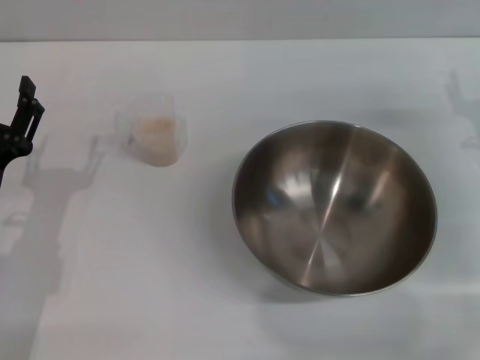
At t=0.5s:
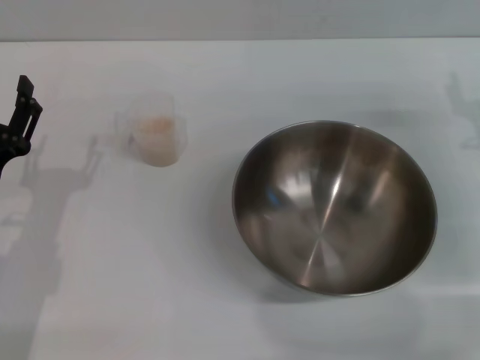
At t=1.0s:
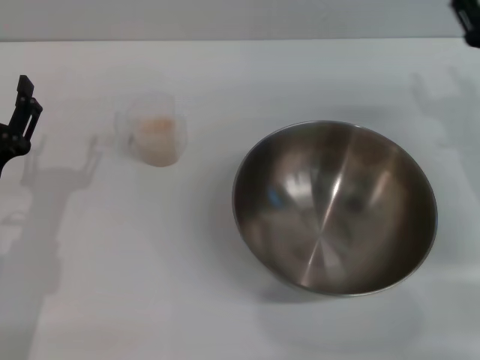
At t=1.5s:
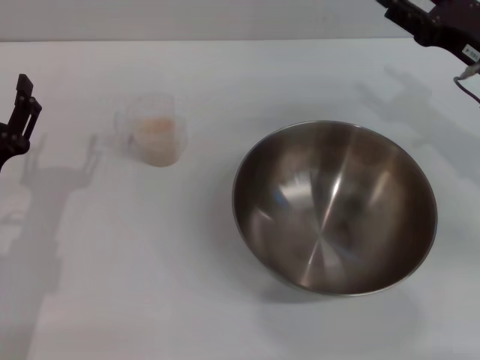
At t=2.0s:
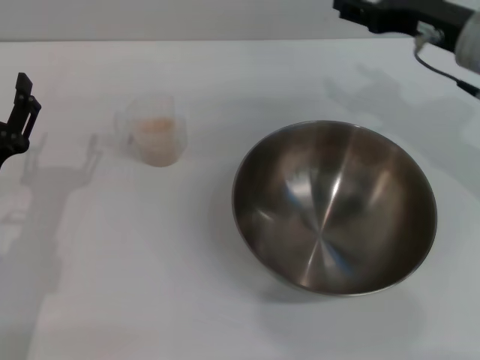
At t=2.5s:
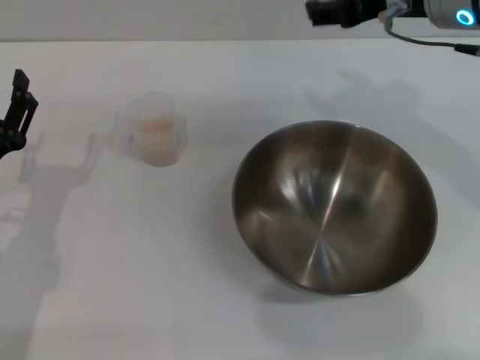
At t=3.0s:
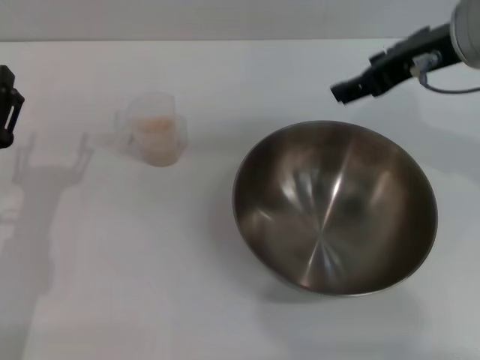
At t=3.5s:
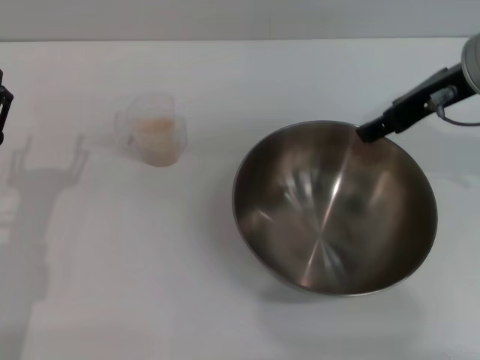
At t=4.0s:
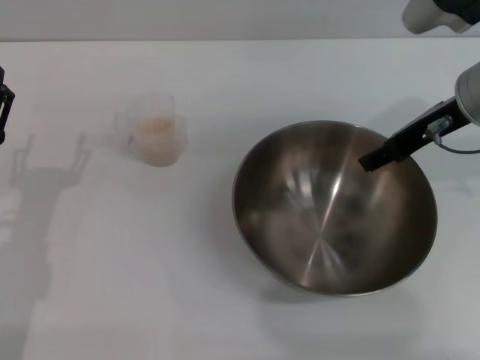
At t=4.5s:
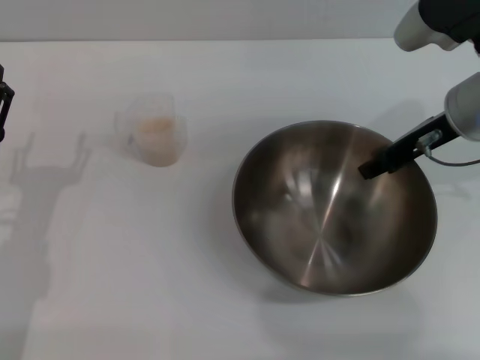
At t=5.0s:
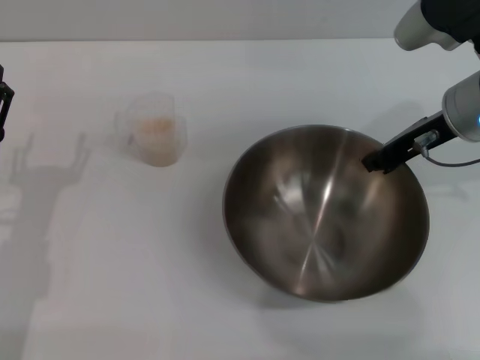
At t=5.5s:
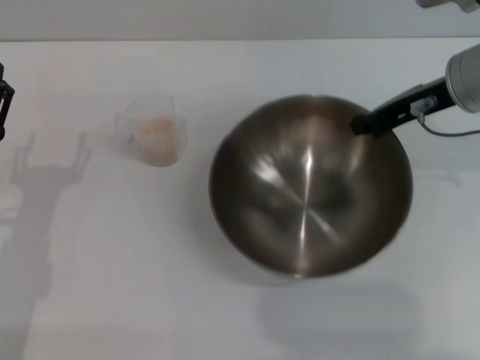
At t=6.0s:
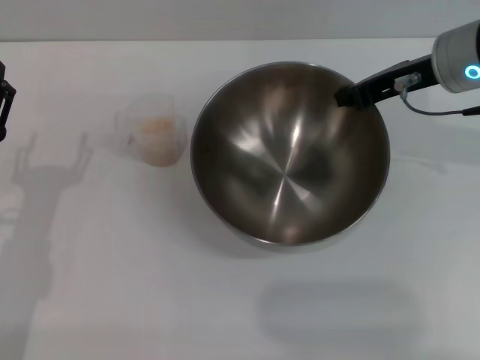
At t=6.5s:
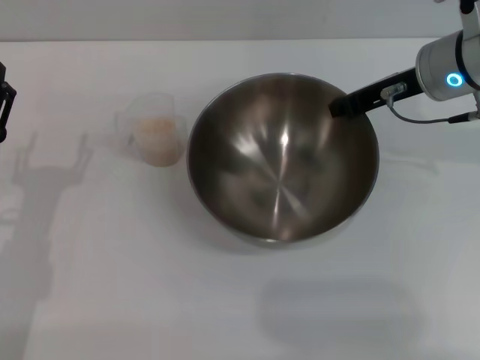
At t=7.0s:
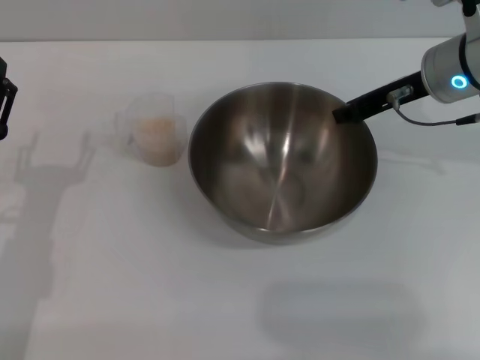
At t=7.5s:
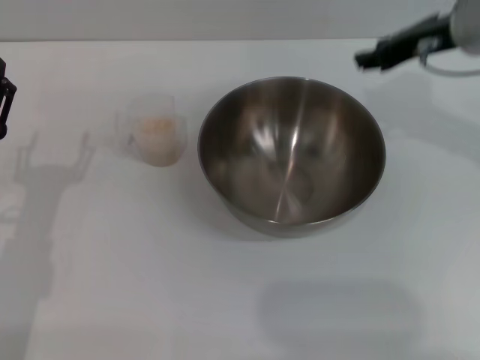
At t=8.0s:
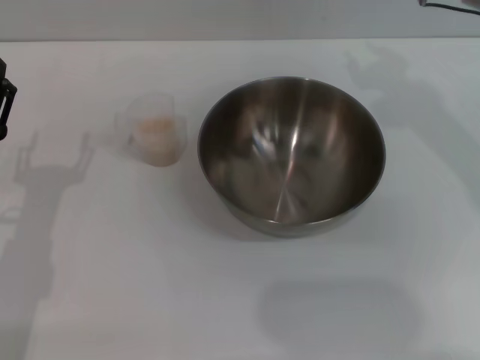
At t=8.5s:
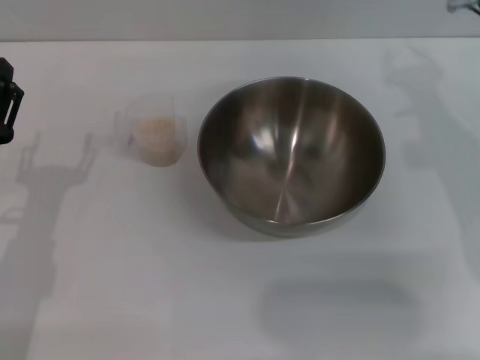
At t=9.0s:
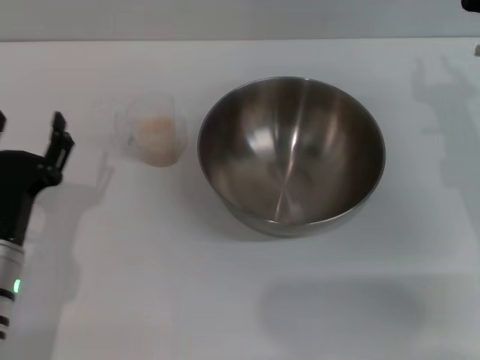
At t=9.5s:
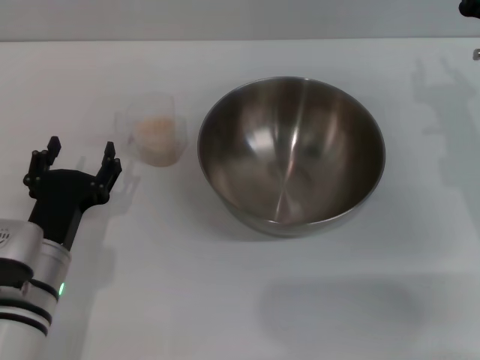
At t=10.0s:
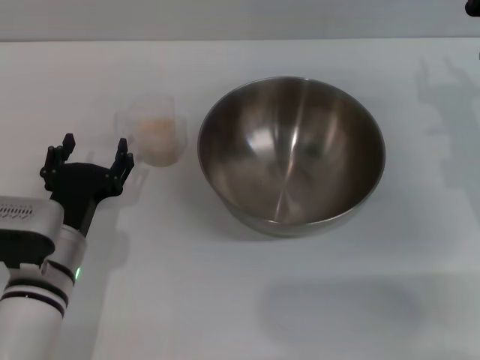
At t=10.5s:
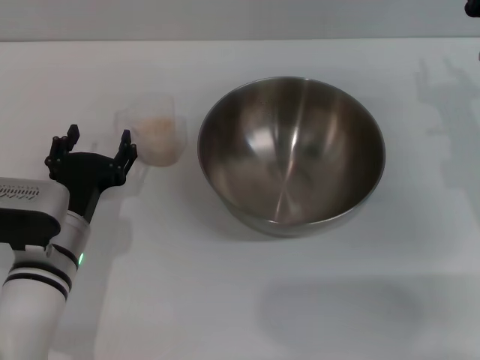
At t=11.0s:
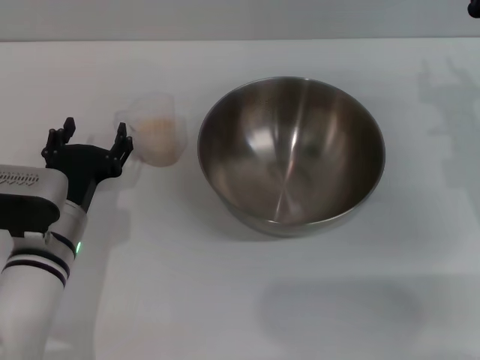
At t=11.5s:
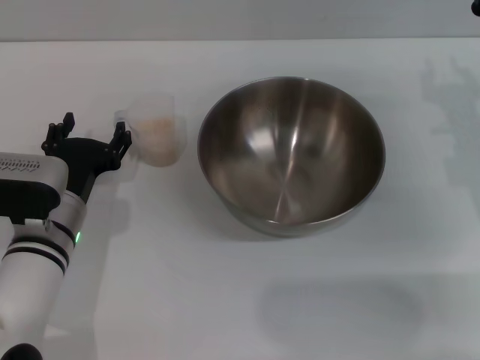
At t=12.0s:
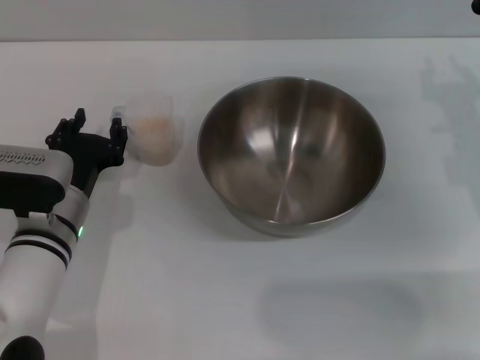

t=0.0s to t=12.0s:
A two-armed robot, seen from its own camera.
Task of the whole recording: Place the bowl in the middle of the table with one hand and pour the rice from the grain cup into it with the other hand.
Step, t=0.0s to t=5.5s: Pick up the bowl with the right gripper.
Step, t=6.0s to t=7.0s: Place the bowl in the center of view with the right gripper.
t=0.0s to t=2.0s: The right gripper moves upward and to the left, some 15 cm.
t=4.0s to t=6.0s: The right gripper closes up.
t=6.0s to t=8.0s: The right gripper opens up.
t=8.0s to t=10.0s: The right gripper goes roughly 10 cm downward and to the right; the left gripper moves to the right, roughly 5 cm.
t=10.0s to t=12.0s: There are only small adjustments of the grippers.

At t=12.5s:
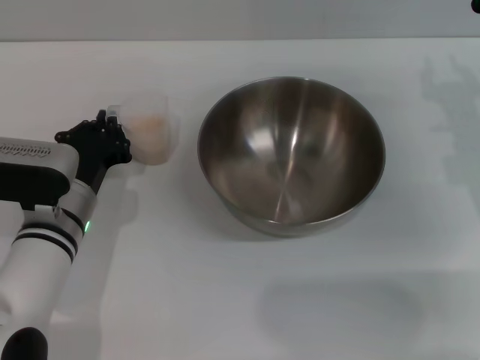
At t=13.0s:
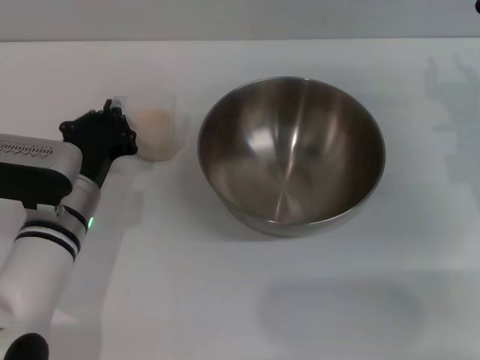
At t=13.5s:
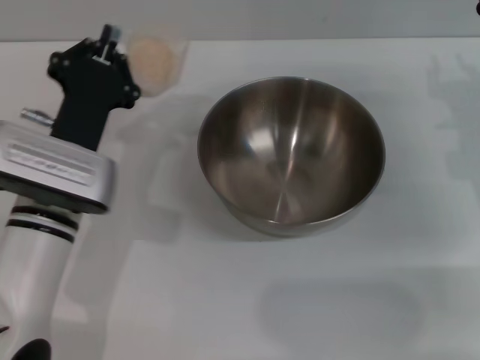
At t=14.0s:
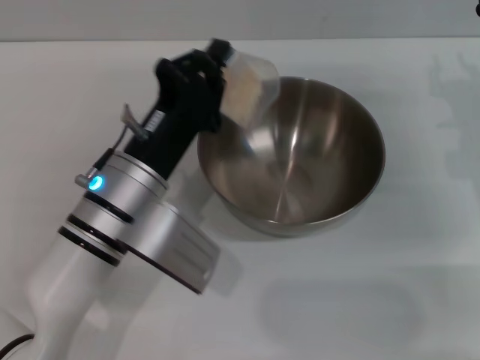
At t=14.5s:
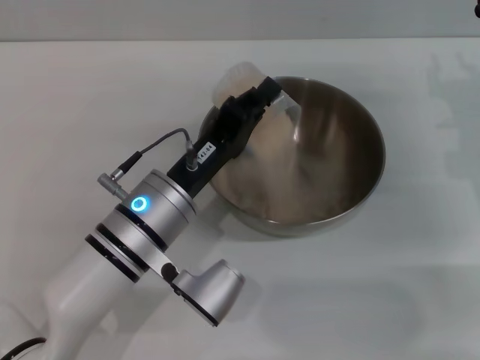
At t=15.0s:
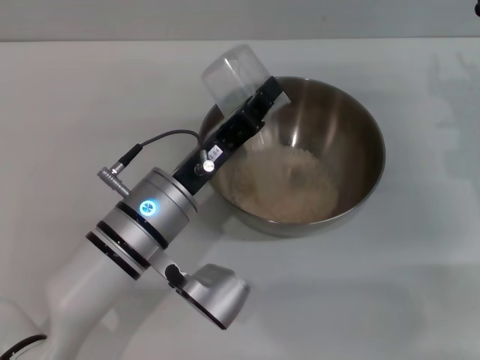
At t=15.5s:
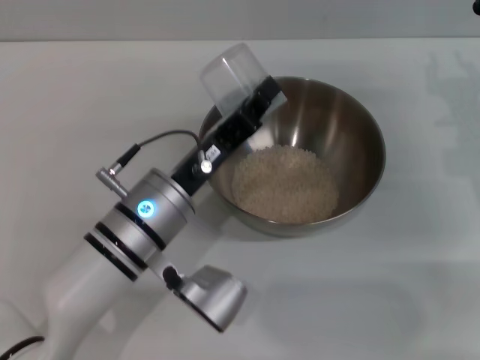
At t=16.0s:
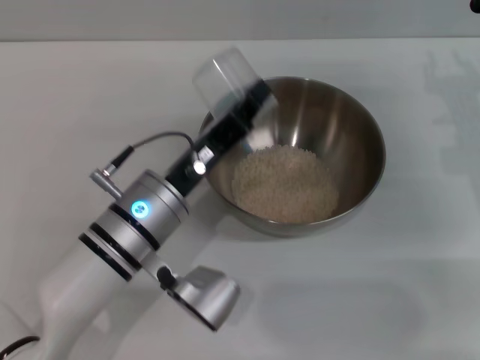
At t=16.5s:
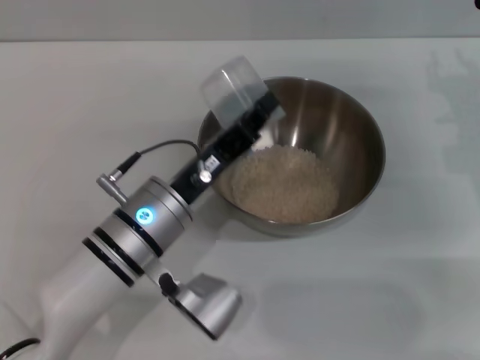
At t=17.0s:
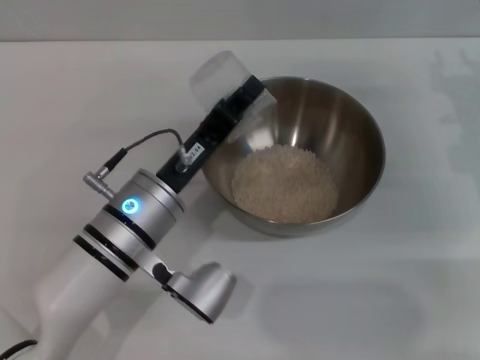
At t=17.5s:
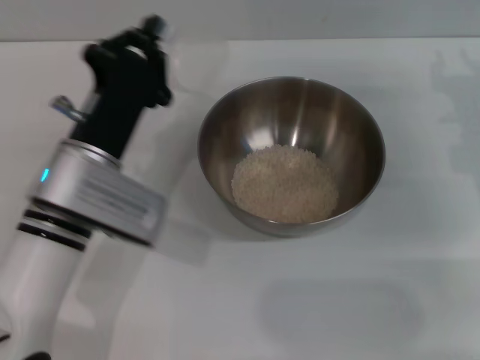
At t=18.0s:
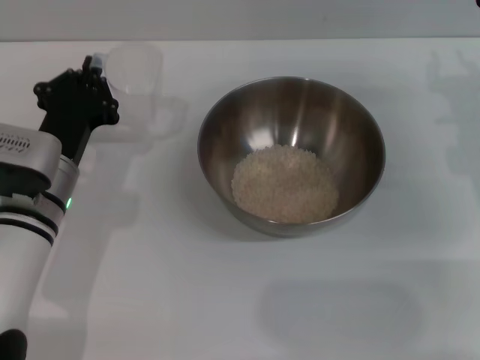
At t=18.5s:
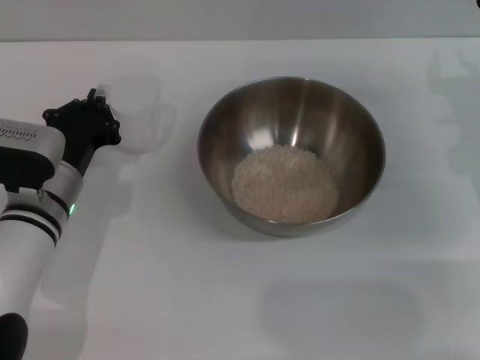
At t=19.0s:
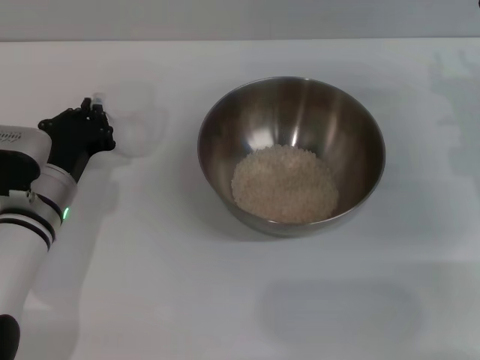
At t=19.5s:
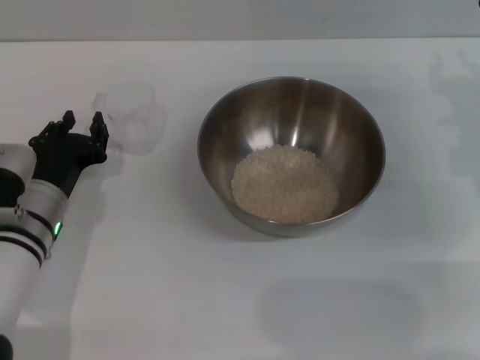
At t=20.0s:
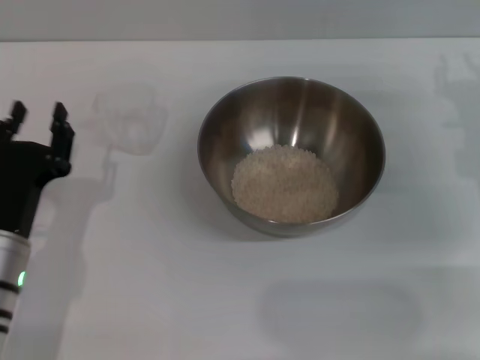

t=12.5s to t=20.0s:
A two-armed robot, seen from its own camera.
Task of the whole recording: Place the bowl in the middle of the table with one hand and pour the rice from the grain cup into it with the other hand.
Step, t=13.5s to t=16.5s: Pour the rice from the cup into the bowl with the left gripper.
Step, t=17.5s to t=19.5s: Place the cup on the table with the left gripper.
t=12.5s to t=14.5s: The left gripper goes some 10 cm to the right.
t=16.5s to t=18.0s: The left gripper travels to the left by approximately 10 cm.
t=18.0s to t=20.0s: The left gripper is displaced backward by about 10 cm, and opens up.

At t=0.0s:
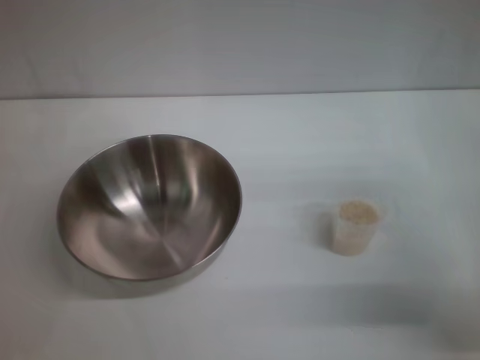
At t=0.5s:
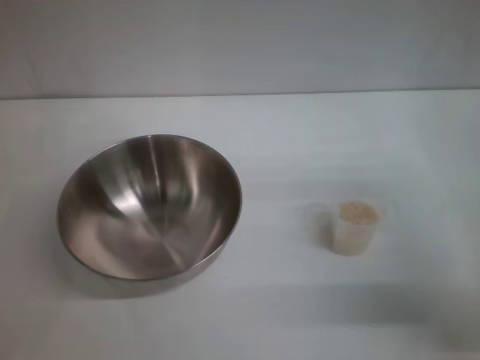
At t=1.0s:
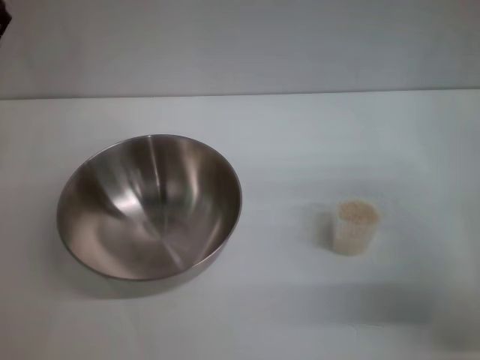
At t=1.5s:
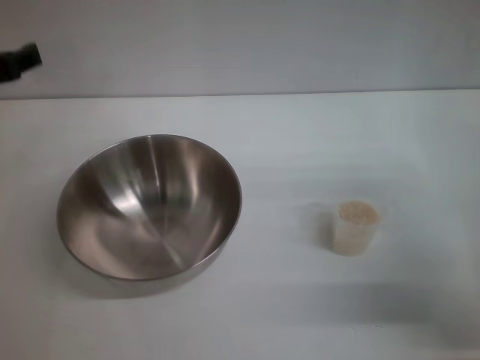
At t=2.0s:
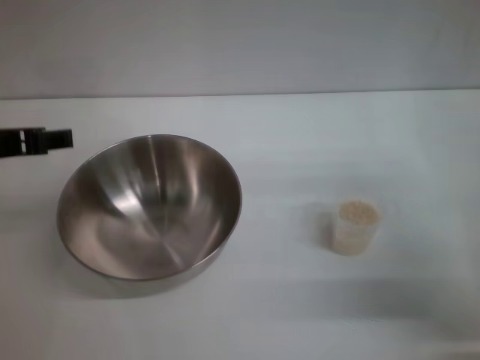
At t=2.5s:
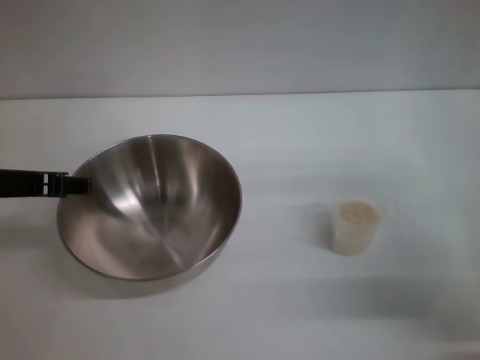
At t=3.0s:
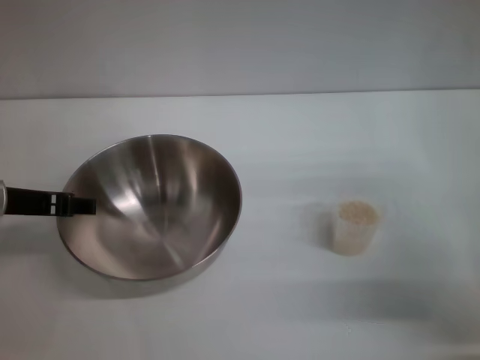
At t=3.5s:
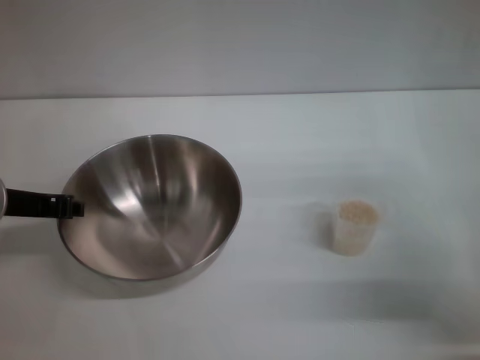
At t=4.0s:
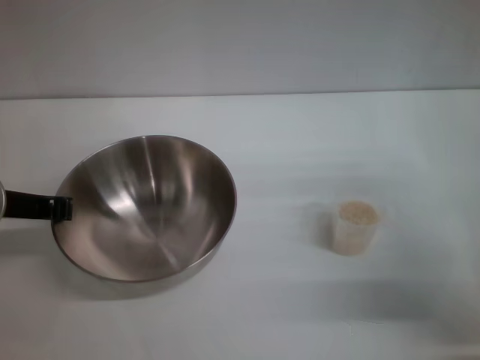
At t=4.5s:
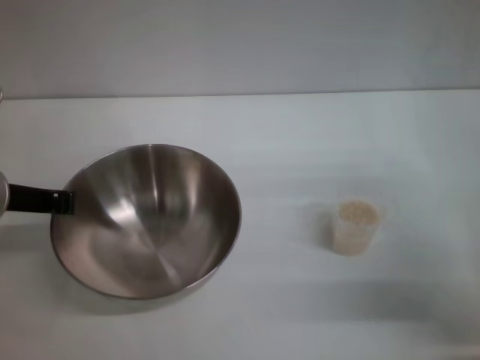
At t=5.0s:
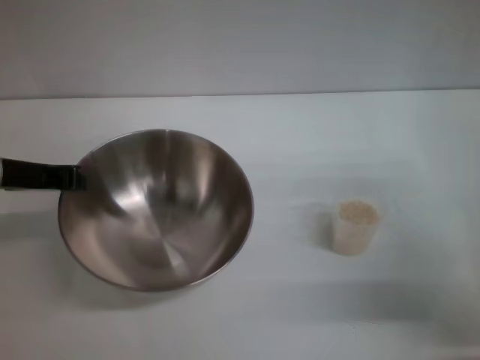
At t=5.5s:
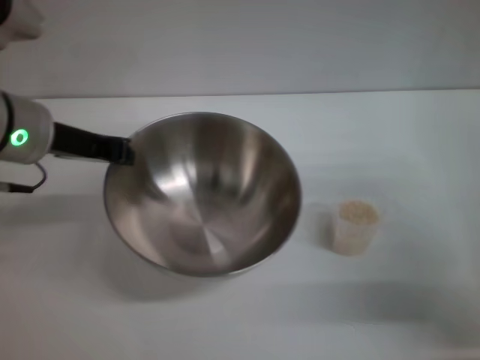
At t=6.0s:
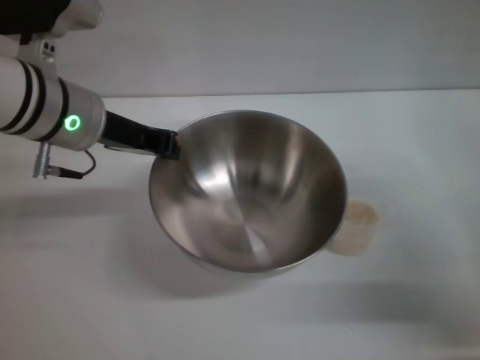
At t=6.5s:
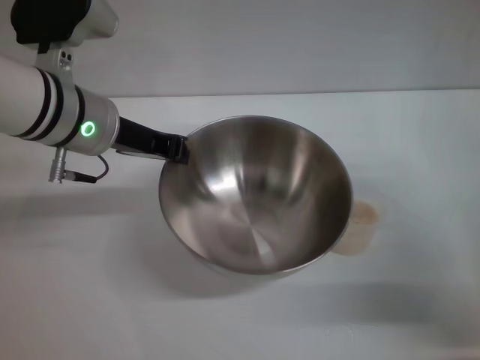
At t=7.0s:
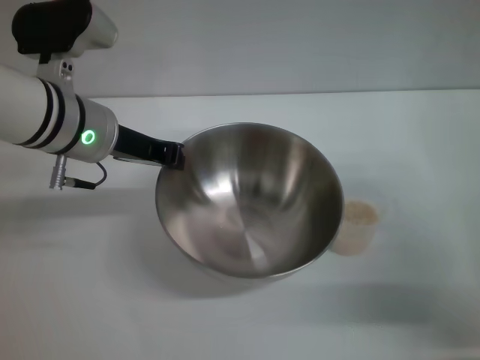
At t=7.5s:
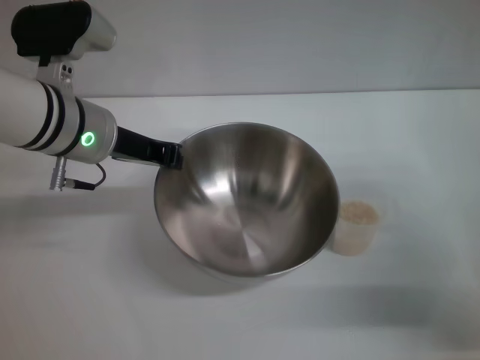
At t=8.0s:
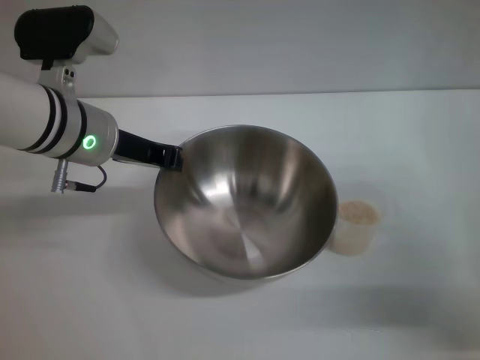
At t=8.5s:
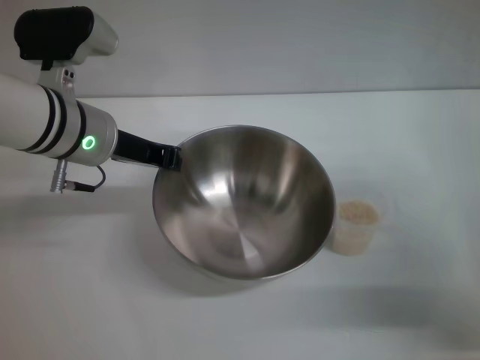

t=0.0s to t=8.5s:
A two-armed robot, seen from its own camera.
Task of the whole recording: Place the bowl in the middle of the table with one hand and pour the rice from the grain cup into it with the other hand.
Step, t=0.0s to t=5.5s: Pick up the bowl with the left gripper.
t=0.0s to t=2.0s: The left gripper shifts some 15 cm upward.
t=2.0s to t=4.0s: The left gripper moves downward, about 5 cm, and closes its fingers.
t=4.0s to t=6.5s: The left gripper goes approximately 10 cm to the right and forward.
t=6.5s to t=8.5s: The grippers make only small movements.
